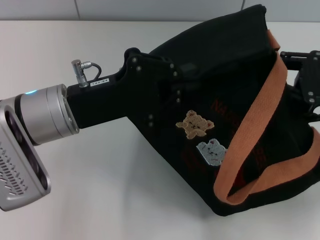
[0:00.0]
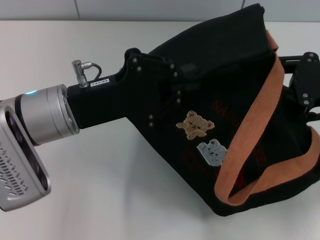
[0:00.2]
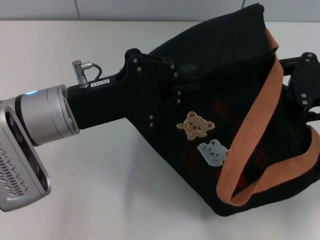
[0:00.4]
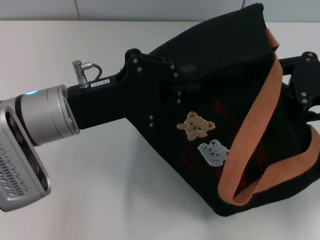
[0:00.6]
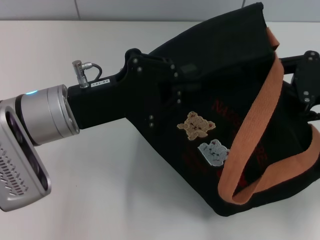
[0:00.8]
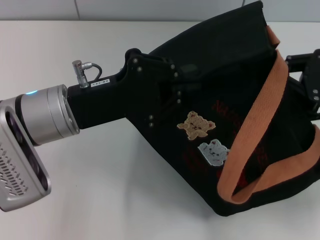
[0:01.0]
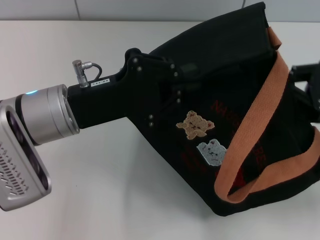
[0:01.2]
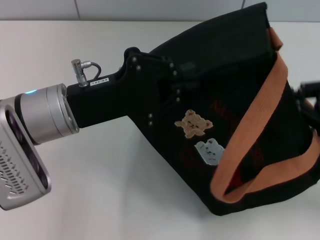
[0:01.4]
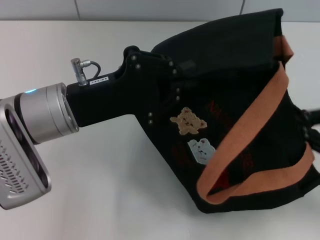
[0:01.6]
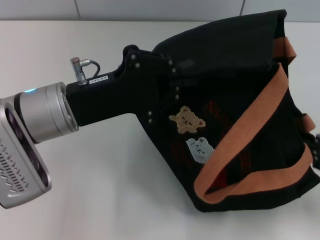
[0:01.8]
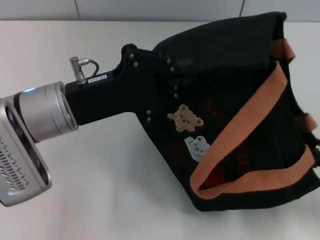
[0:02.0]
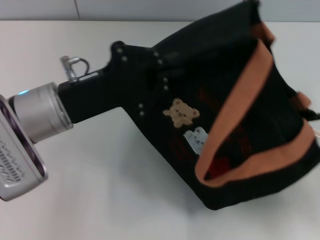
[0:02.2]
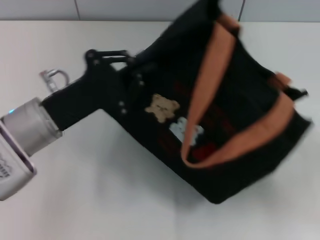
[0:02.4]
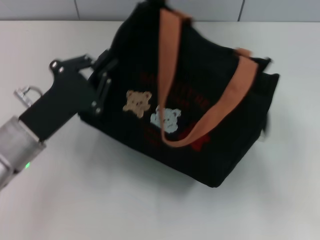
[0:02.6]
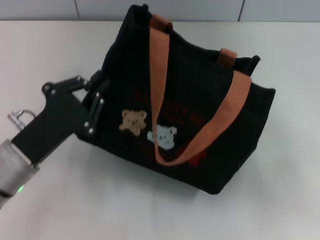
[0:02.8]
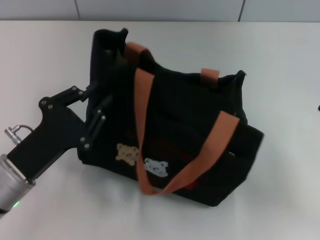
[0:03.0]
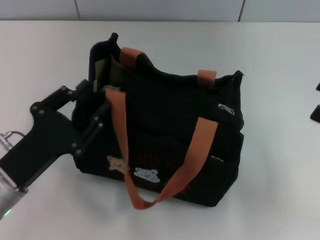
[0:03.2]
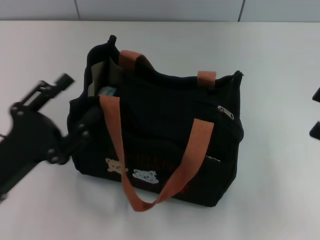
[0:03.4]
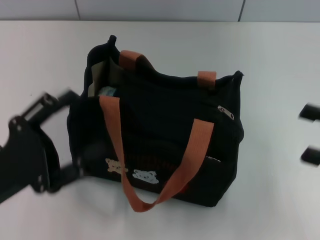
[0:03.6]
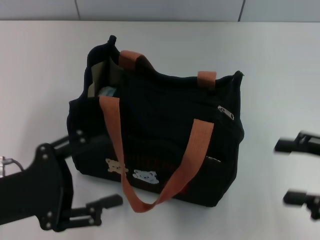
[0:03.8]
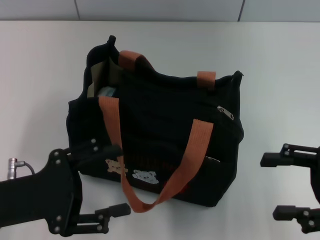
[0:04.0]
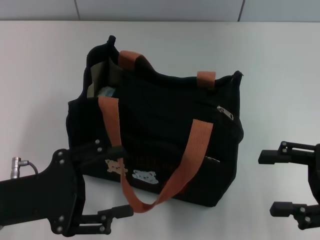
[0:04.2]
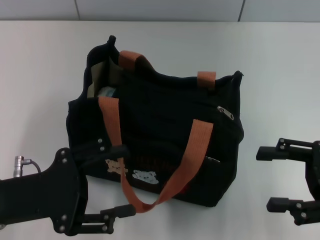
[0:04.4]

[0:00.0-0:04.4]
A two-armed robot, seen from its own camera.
Step, 0:00.0 to 0:02.2: Pull open the zipper with your right hand.
Step, 0:02.4 to 0:03.4: Grab the bag with your left hand.
0:00.0 to 0:01.4: The right gripper closes up.
0:01.4 to 0:03.0: The left gripper shifts some 15 cm downward, backward and to the left, while the right gripper opens.
0:03.0 to 0:04.4: The right gripper moves to the left, some 5 cm. Meanwhile the left gripper opens.
